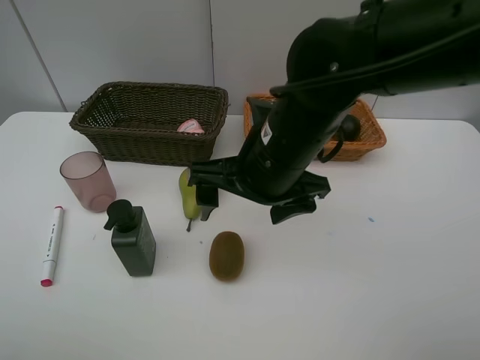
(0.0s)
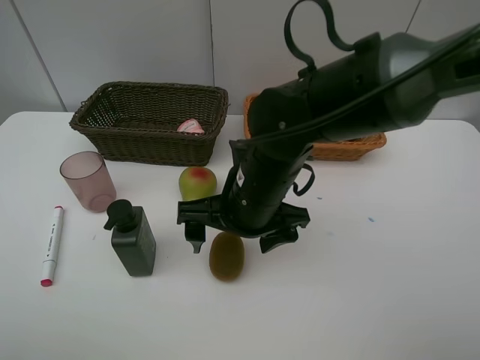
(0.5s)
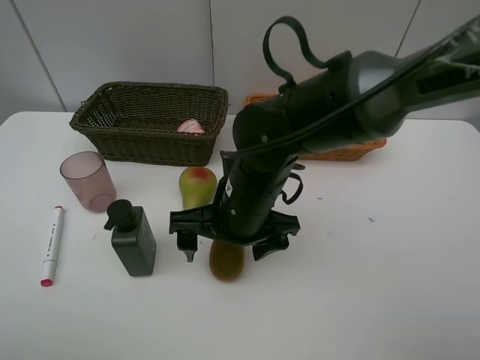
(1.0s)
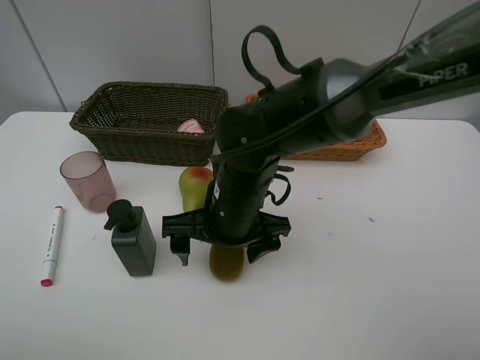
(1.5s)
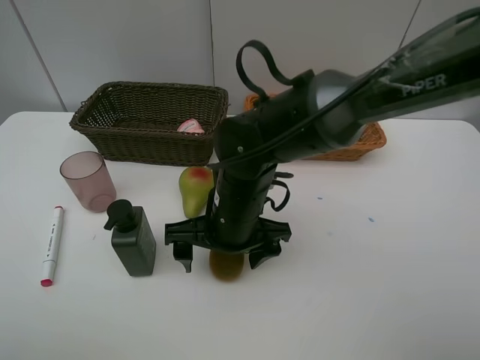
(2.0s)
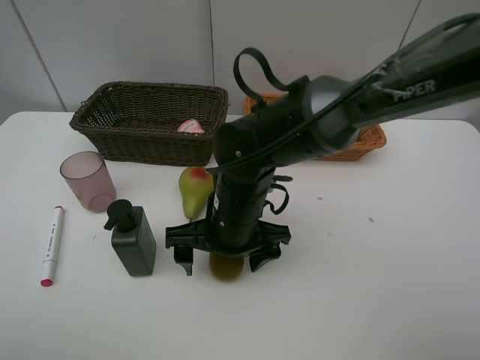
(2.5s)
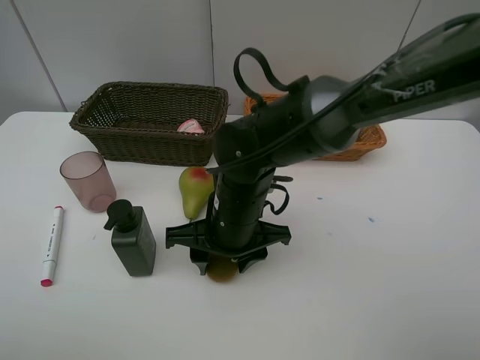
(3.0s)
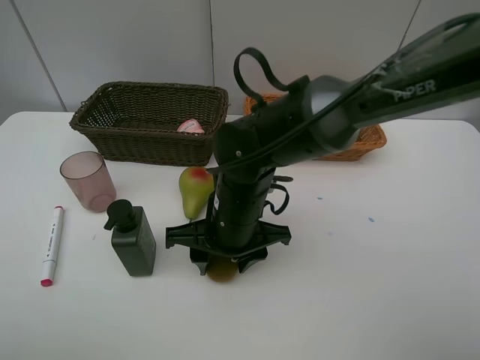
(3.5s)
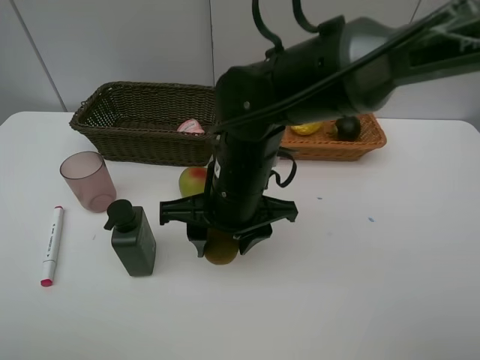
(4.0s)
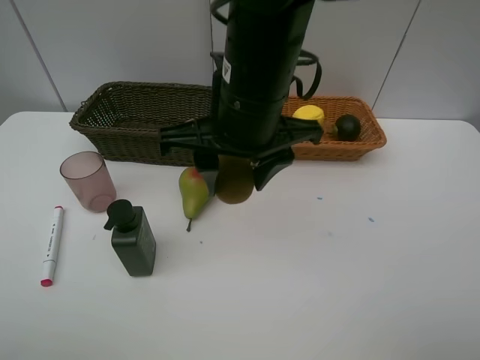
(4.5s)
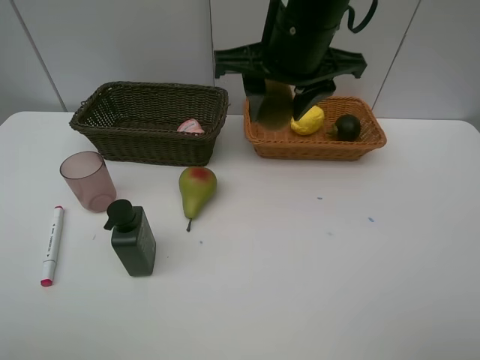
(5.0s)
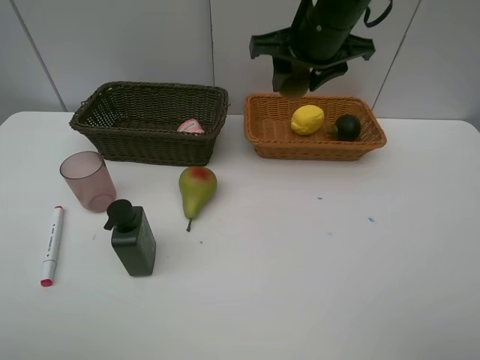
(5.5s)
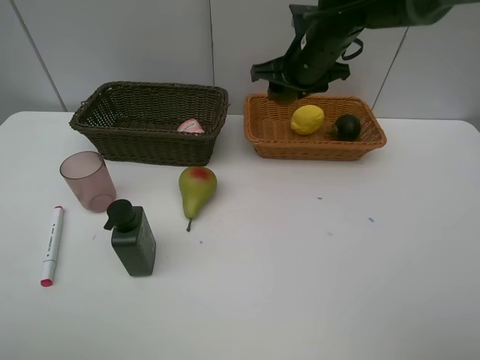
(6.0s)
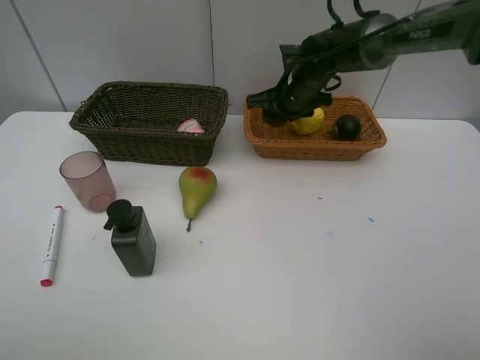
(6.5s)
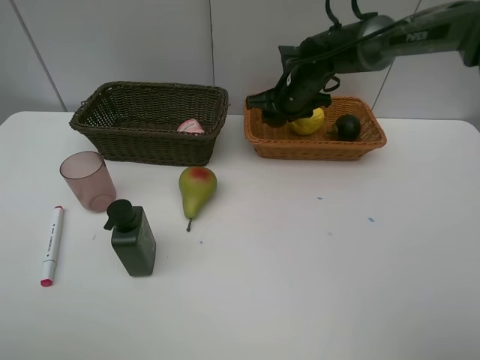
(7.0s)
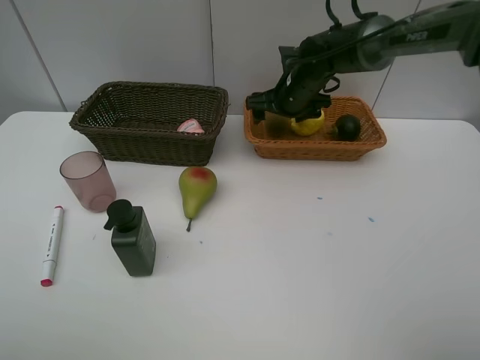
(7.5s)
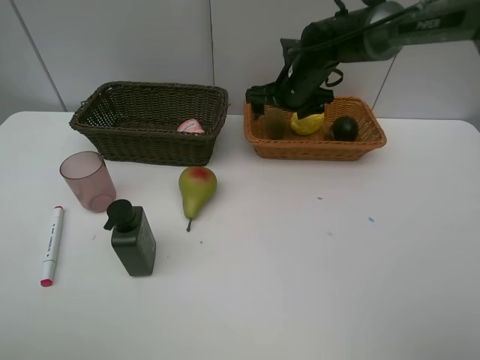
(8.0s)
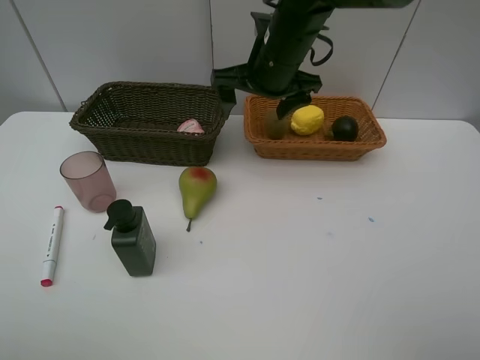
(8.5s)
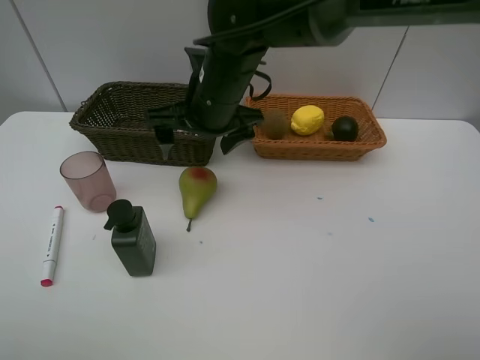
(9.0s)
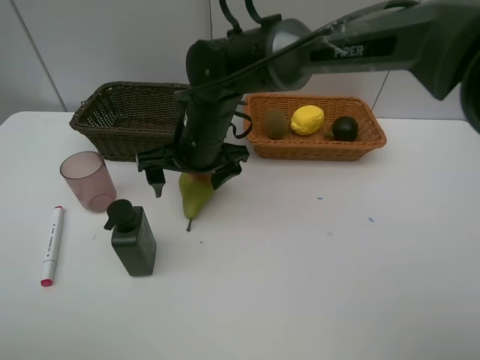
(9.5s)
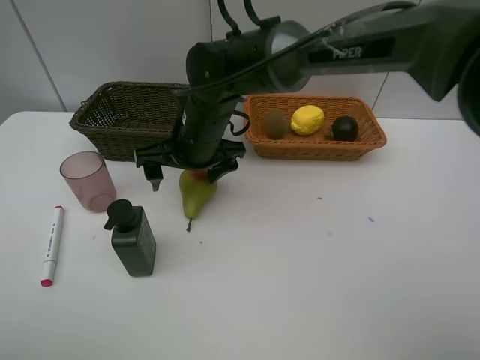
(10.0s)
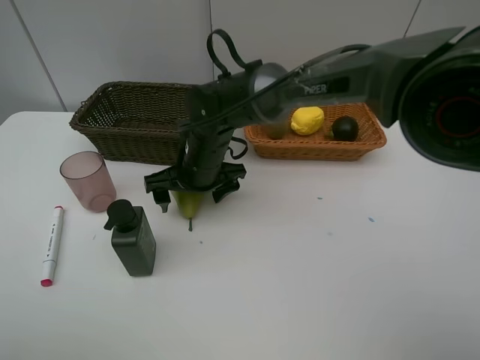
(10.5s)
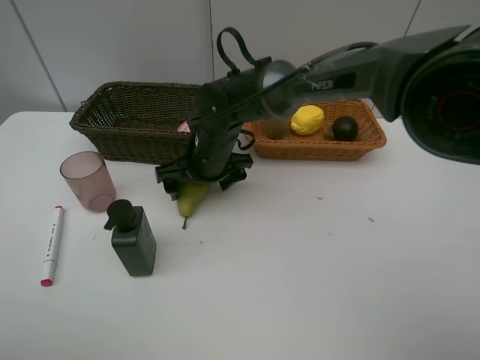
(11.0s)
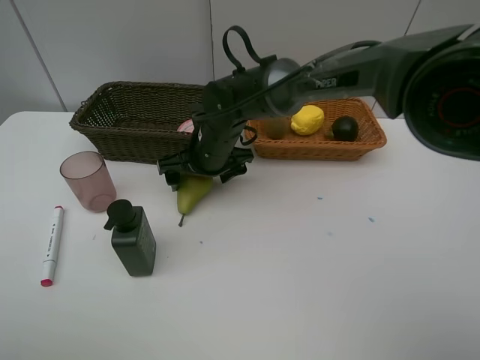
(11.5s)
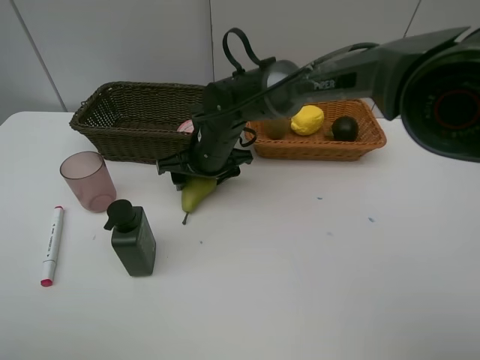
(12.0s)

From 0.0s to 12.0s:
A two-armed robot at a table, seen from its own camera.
Task of the whole recording: Place multiple objects separately in different baskets.
Step, from 0.0s to 3.5s: Pick up kiwi with right gripper.
Step, from 4.0s to 8.0s: Place the kiwi in the light basket with right gripper.
From 0.0s to 2.0s: The right gripper shifts roughly 10 cm downward.
From 2.0s to 4.0s: The right gripper goes about 5 cm upward, and closes its fingers.
From 4.0s to 6.0s: The right gripper is displaced forward and to the right by approximately 25 cm.
From 6.0s to 8.0s: The right gripper opens.
From 8.0s to 10.0s: The right gripper shifts some 20 cm to the left and backward.
From 10.0s to 12.0s: The right gripper heads downward, covering some 5 cm, and closes up.

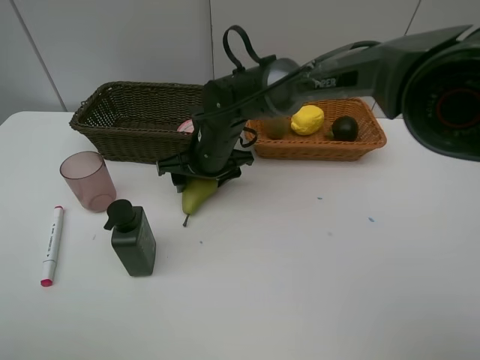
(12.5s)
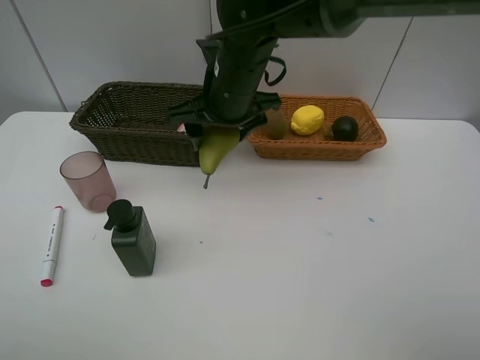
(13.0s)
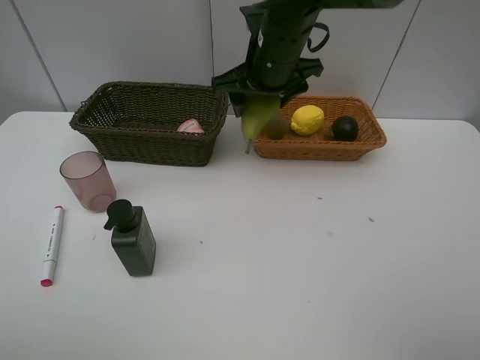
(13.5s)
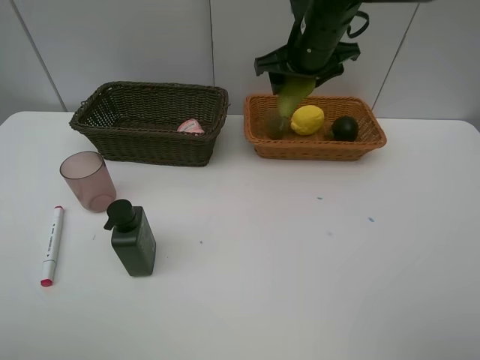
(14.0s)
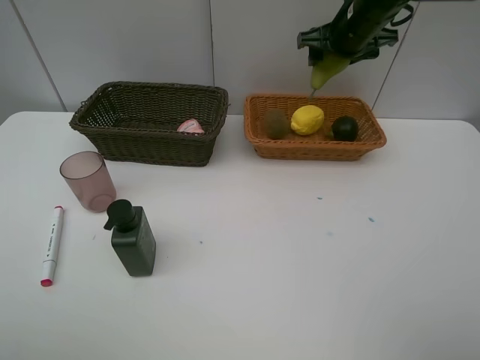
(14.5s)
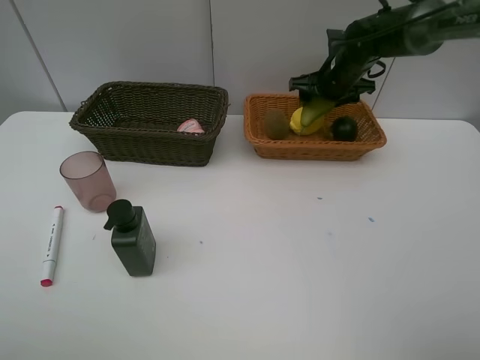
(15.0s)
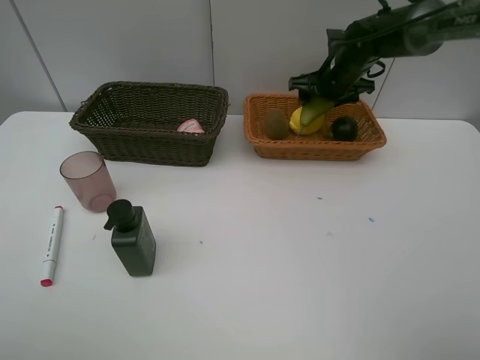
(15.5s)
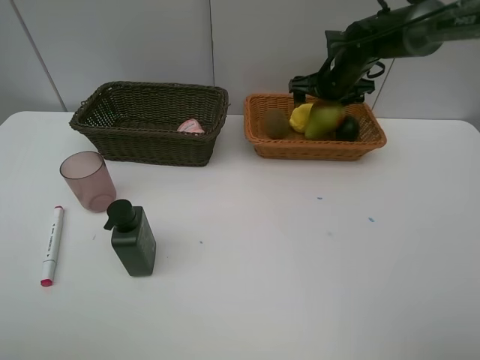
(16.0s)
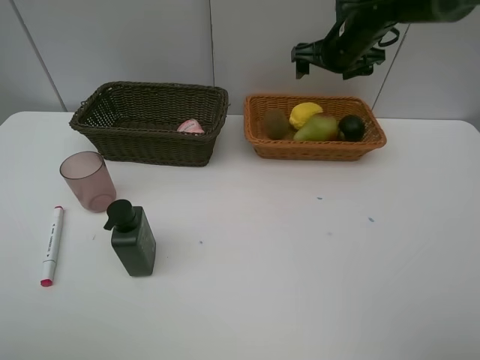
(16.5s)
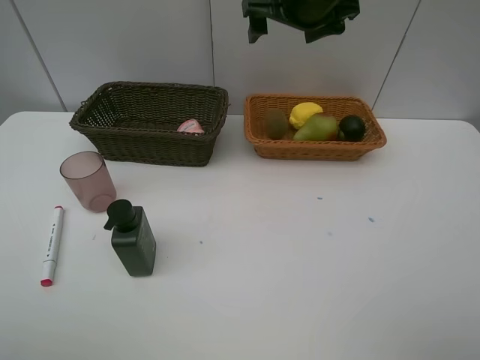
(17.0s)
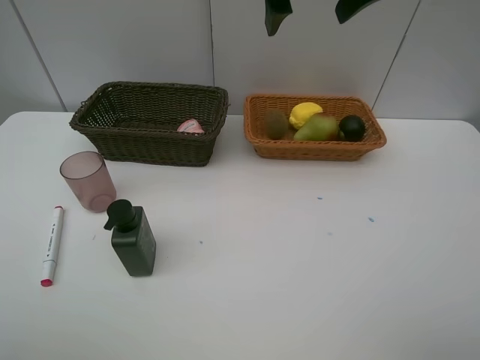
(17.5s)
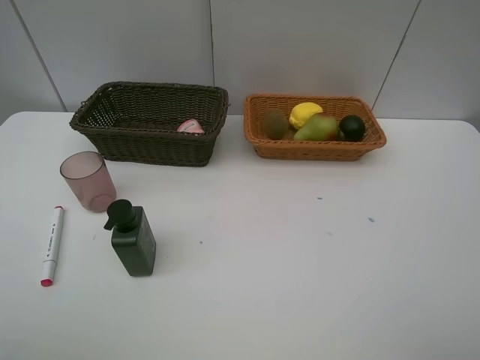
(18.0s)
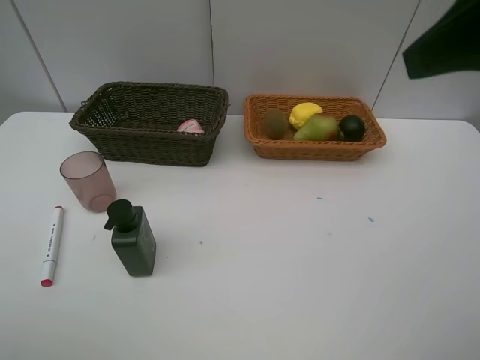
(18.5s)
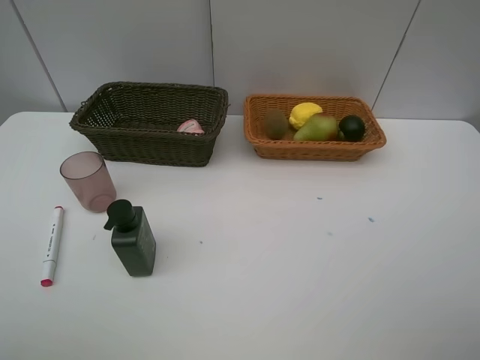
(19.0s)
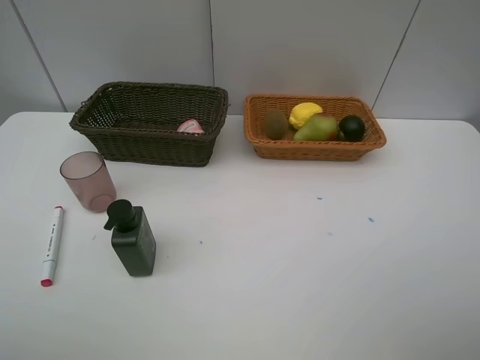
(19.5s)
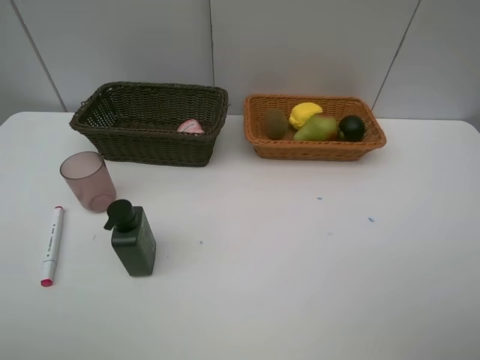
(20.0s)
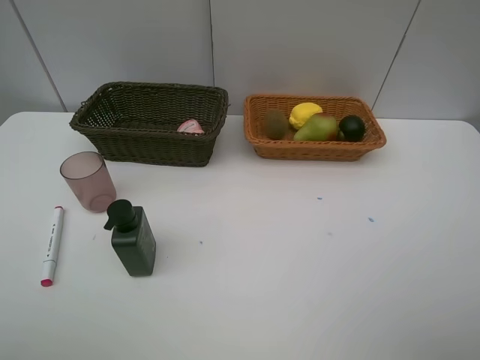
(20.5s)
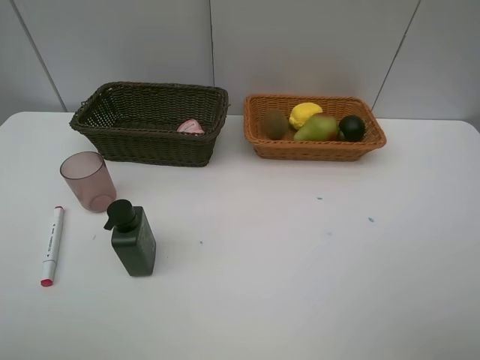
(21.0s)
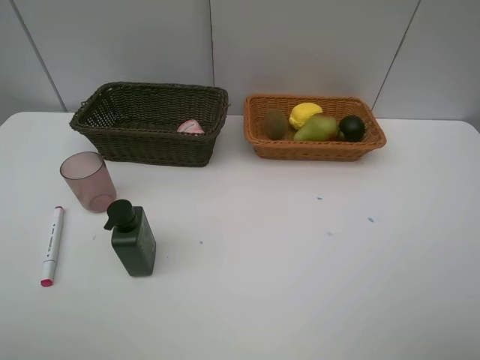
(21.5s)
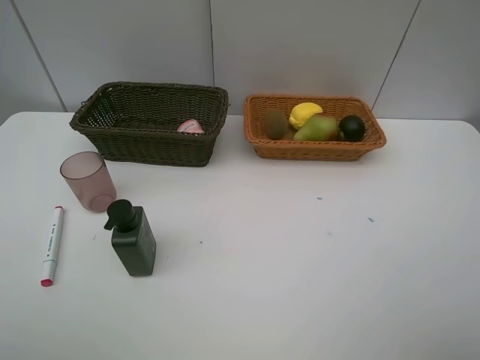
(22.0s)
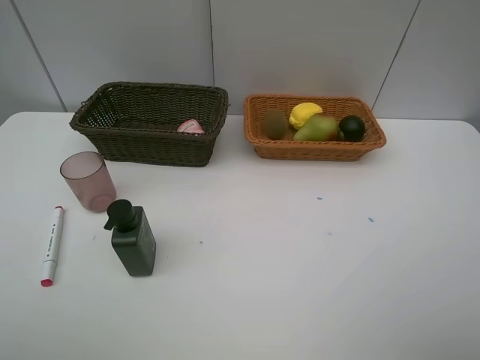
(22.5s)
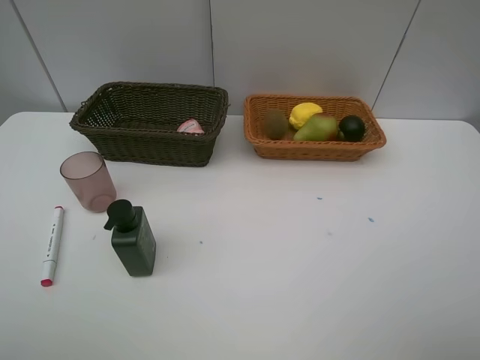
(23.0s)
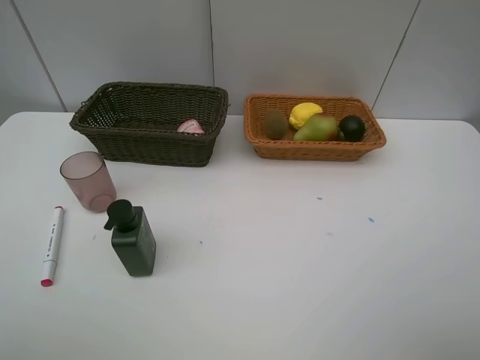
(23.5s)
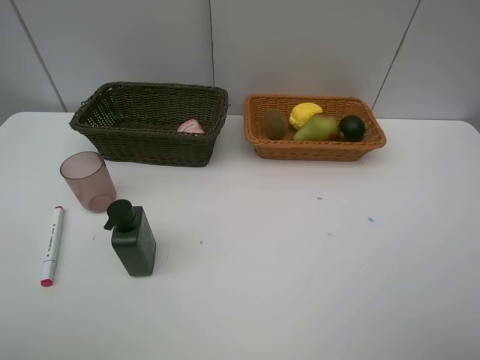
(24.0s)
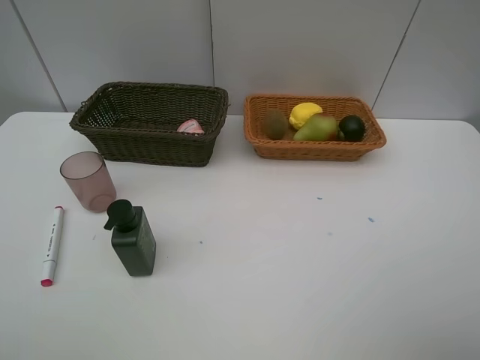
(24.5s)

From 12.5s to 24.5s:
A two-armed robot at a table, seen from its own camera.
Task of the whole recording: Place multiple objects separately in different baskets.
Step, from 13.0s to 16.0s: Place the pear in the light basket with right gripper.
From 12.5s to 14.5s: The right gripper moves to the right, upward and forward, some 30 cm.
From 14.5s to 16.5s: The right gripper travels downward and back again, some 10 cm each way, and opens its fingers.
From 16.5s to 18.5s: The right gripper shifts some 40 cm backward and upward.
From 18.5s to 20.5s: The right gripper heads downward, backward and to the right, covering roughly 20 cm.

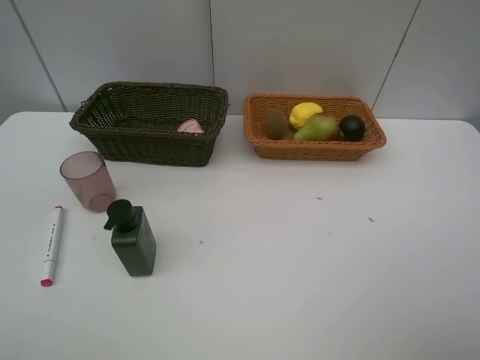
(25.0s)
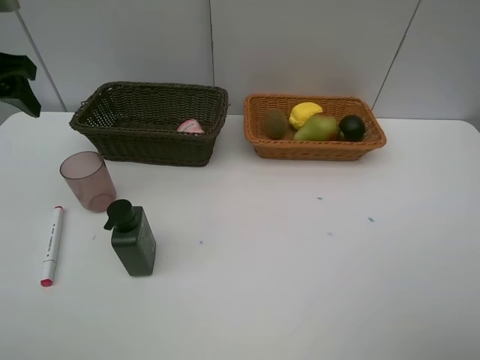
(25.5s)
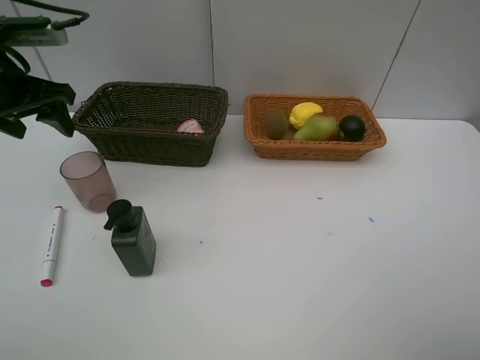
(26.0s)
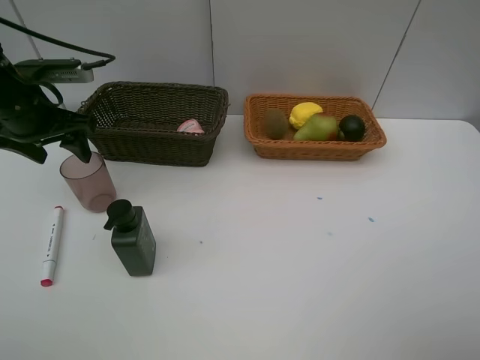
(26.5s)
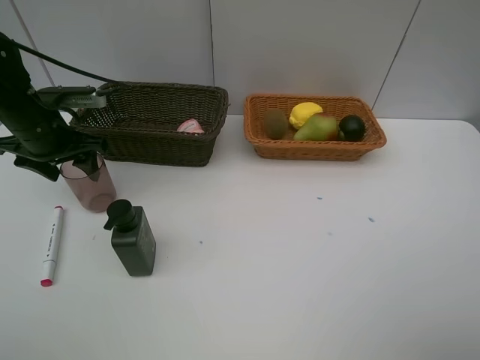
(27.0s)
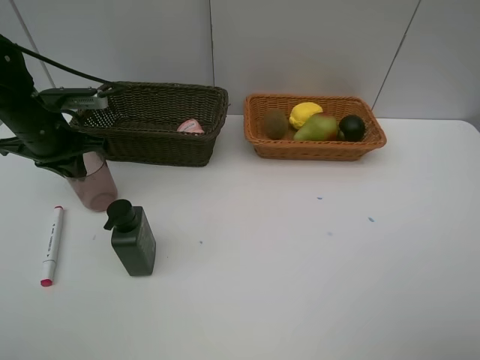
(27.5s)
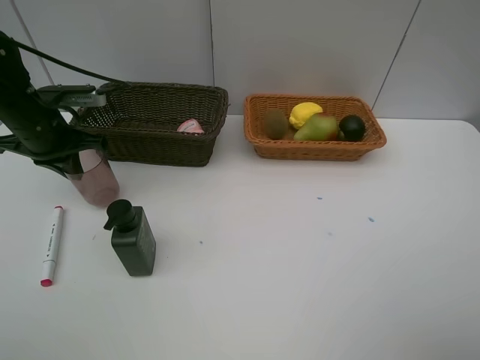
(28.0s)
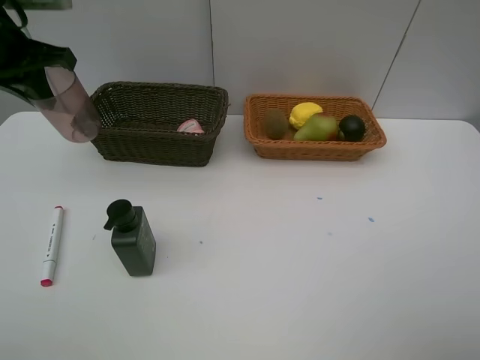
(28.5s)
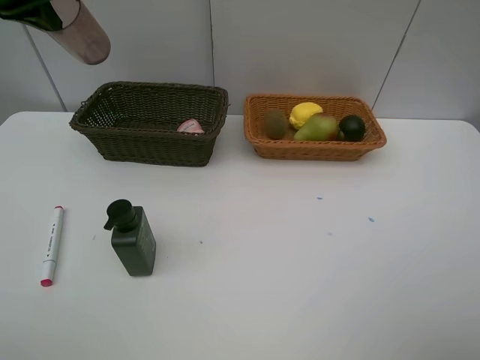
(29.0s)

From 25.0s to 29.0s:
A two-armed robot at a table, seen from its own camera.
Task of the whole recording: Place multiple objects separately in different baskets.
Step, from 25.0s to 28.0s: Pick up the red cup with left gripper.
From 25.0s to 27.0s: The left gripper shifts some 20 cm downward and forward.
From 27.0s to 29.0s: The left gripper moves upward, roughly 15 cm, and closes up.
